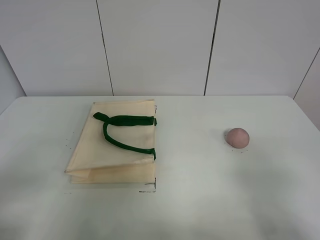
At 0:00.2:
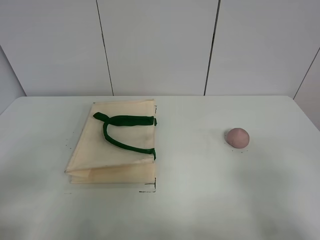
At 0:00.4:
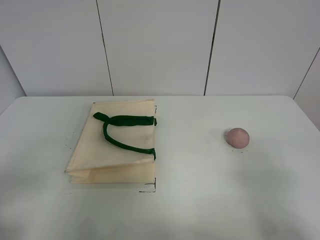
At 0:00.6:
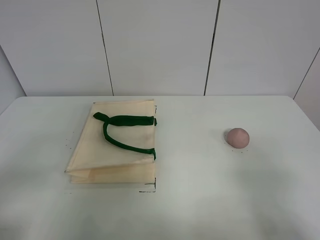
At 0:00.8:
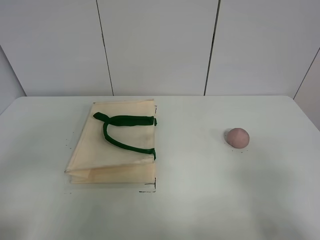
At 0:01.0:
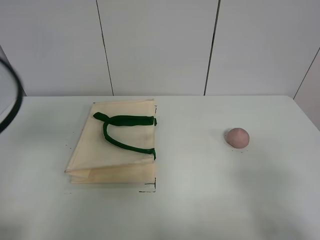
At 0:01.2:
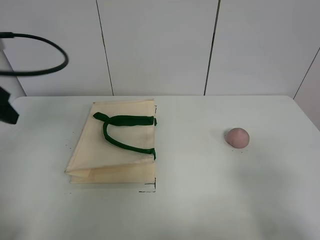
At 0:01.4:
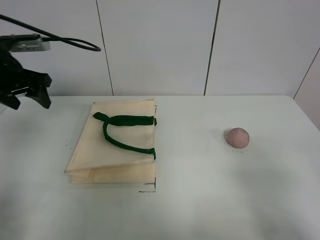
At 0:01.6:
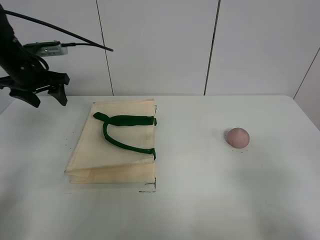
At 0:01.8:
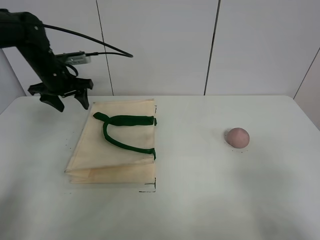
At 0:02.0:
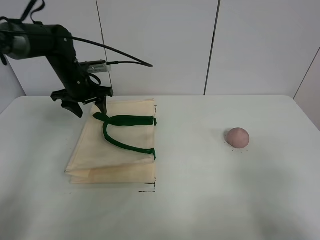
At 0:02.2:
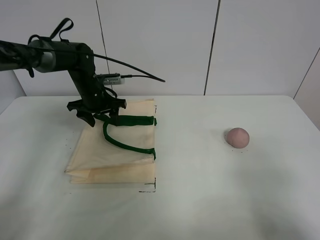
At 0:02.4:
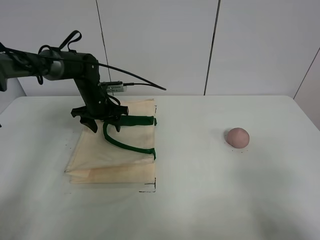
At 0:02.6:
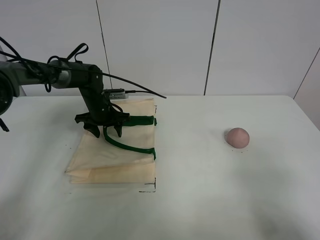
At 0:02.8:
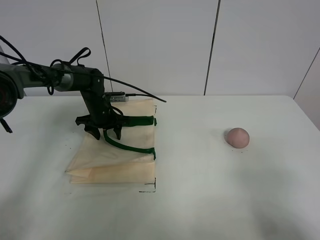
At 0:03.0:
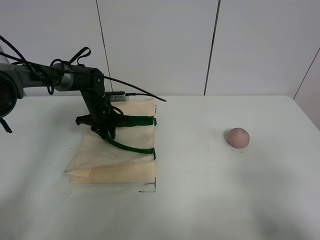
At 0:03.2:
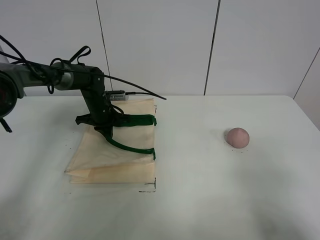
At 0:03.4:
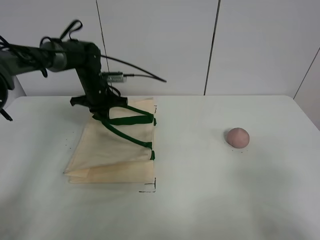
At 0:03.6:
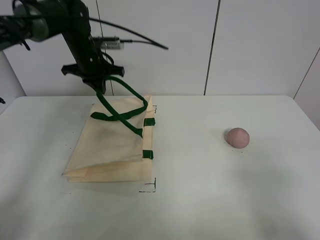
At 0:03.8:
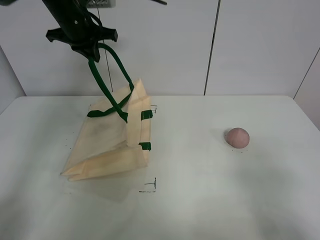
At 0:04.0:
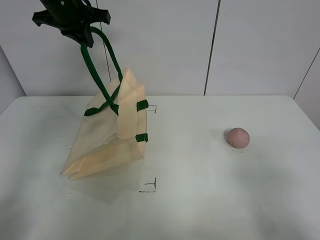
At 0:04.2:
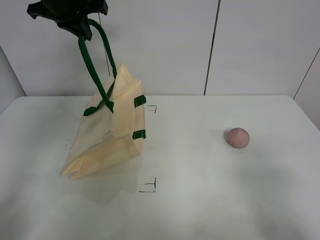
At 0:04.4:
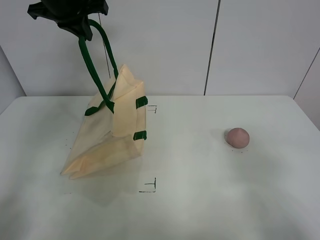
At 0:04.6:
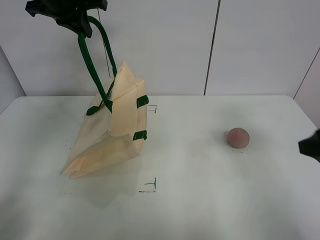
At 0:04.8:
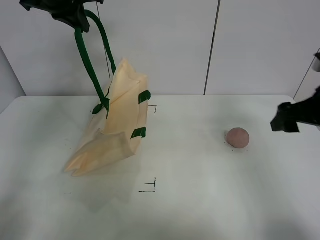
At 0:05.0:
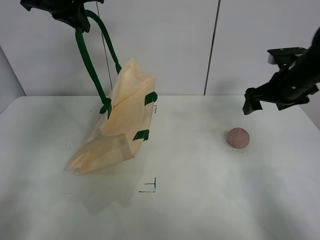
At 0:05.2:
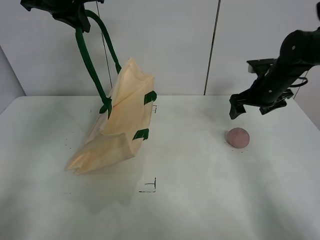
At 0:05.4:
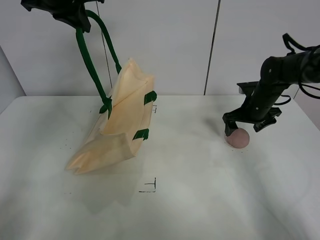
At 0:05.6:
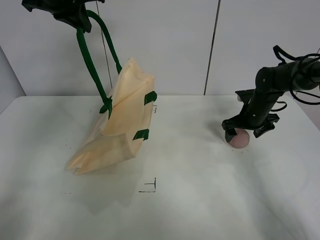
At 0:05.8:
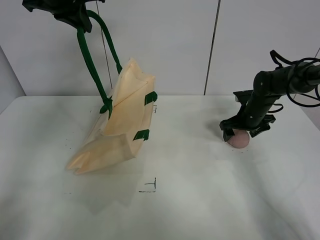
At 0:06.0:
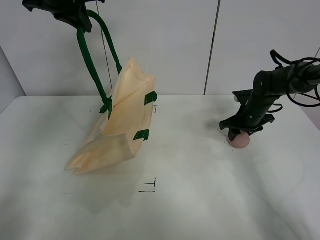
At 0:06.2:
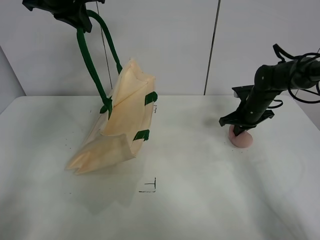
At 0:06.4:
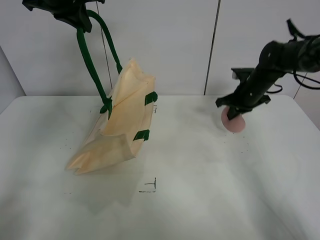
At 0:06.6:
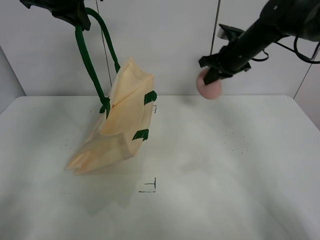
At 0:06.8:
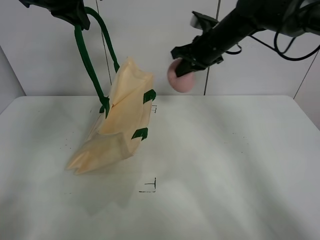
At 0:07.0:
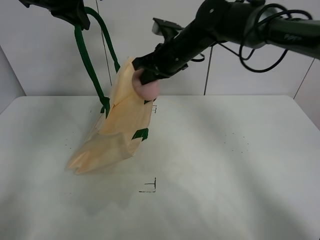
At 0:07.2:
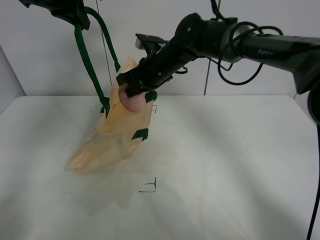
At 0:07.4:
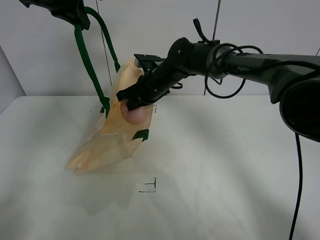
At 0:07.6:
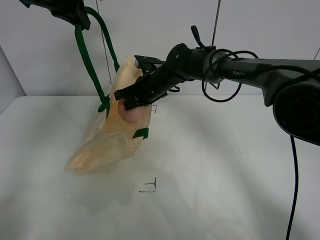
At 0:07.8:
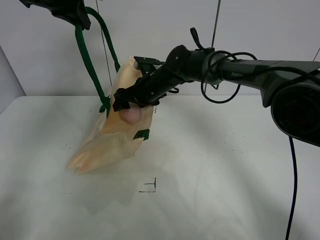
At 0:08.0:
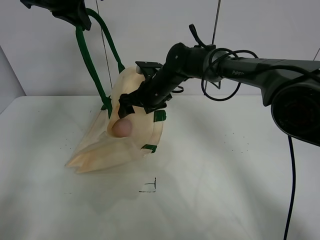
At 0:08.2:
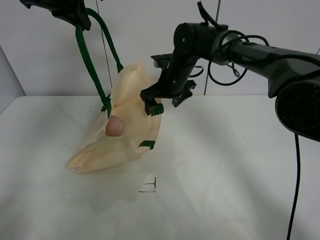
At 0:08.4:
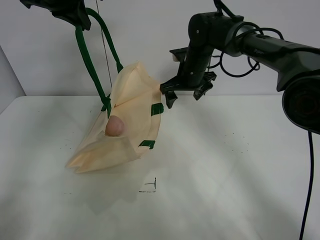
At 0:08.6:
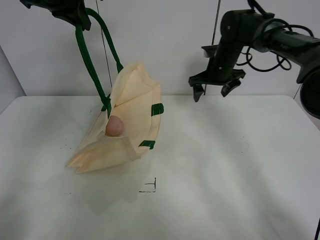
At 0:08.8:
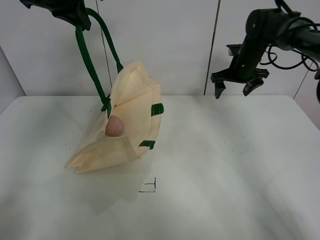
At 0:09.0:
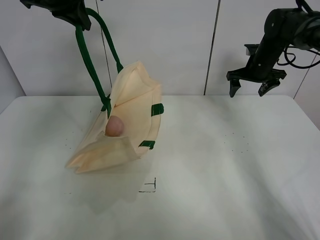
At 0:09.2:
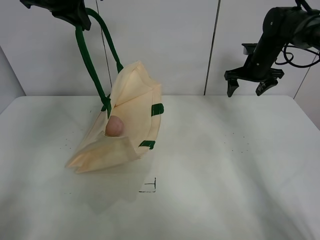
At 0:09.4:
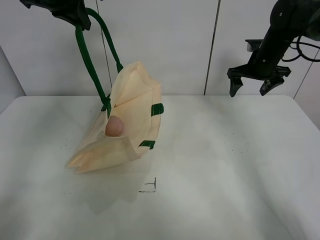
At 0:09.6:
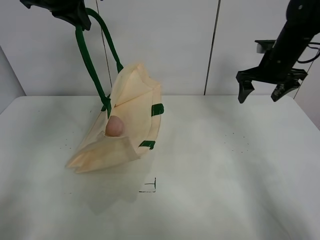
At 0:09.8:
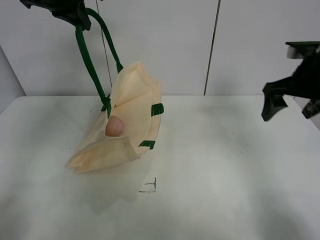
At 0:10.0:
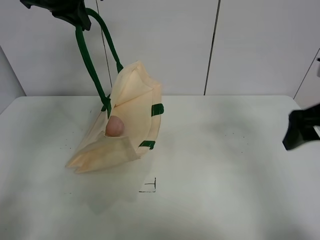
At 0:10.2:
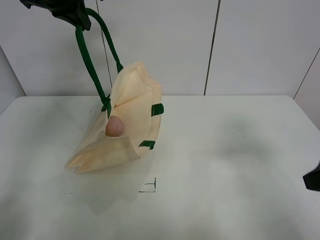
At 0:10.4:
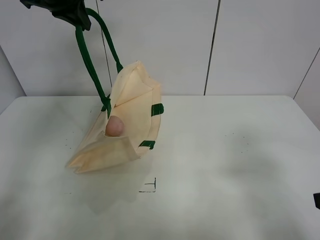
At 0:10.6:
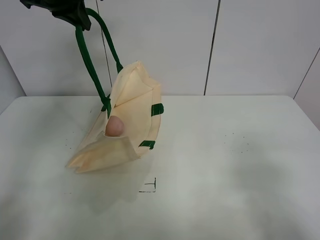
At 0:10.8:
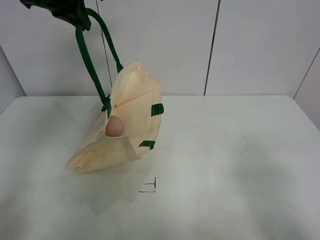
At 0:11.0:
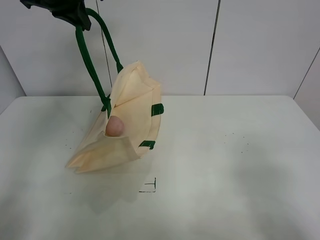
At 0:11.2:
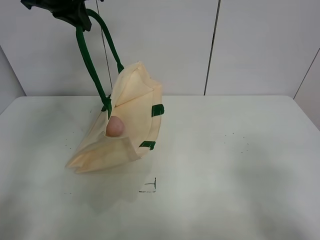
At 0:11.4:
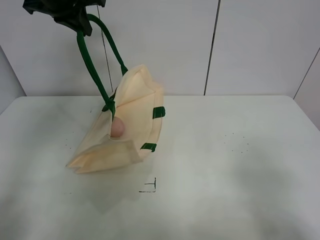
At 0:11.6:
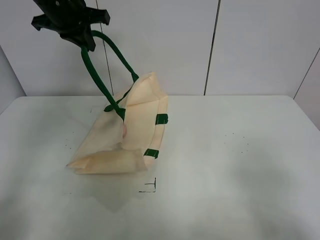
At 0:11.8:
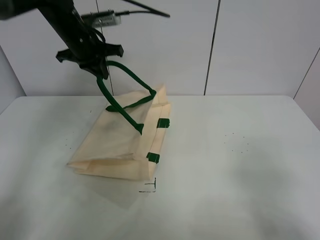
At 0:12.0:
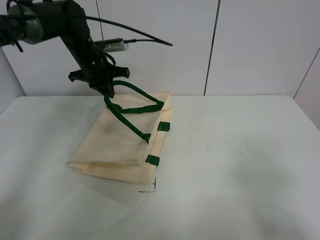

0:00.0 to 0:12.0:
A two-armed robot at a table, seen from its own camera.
Task of the whole recording: open the white linen bag and put the peach in the bag.
Step, 0:00.0 to 0:04.2: Lift the handbag with left gripper.
Step, 0:04.4 to 0:06.0: Grasp the peach with right gripper.
Step, 0:06.2 to 0:08.0: Place the peach in the handbag with right gripper.
0:01.6 to 0:03.0: The left gripper shifts about 25 cm downward, to the right and forward.
0:03.0 to 0:04.4: The left gripper shifts some 30 cm upward, and closes.
0:04.4 to 0:06.0: The right gripper goes some 40 cm forward.
0:06.0 to 0:07.6: The right gripper shifts about 25 cm to the left, and closes.
0:07.6 to 0:09.0: The right gripper travels to the right by some 25 cm, and opens.
0:09.0 to 0:10.4: The right gripper moves backward, roughly 40 cm.
0:10.4 to 0:12.0: The right gripper heads backward, covering approximately 10 cm; the left gripper moves downward, about 15 cm.

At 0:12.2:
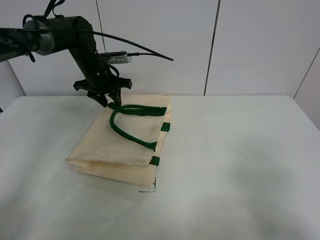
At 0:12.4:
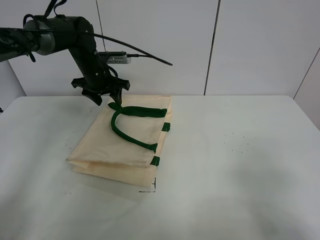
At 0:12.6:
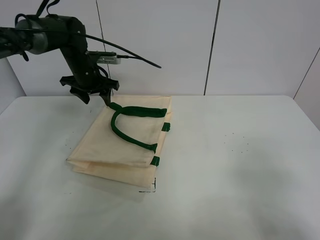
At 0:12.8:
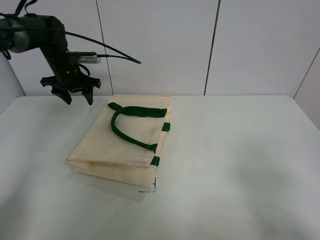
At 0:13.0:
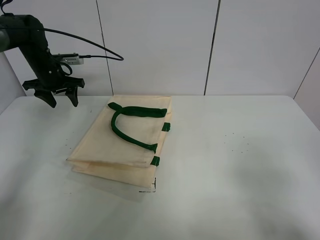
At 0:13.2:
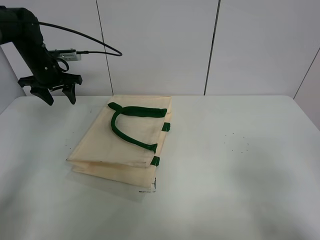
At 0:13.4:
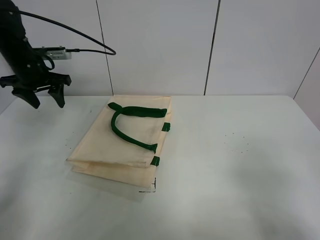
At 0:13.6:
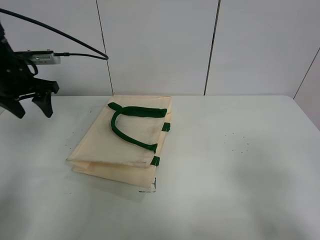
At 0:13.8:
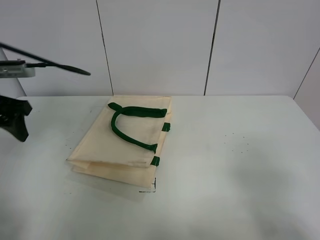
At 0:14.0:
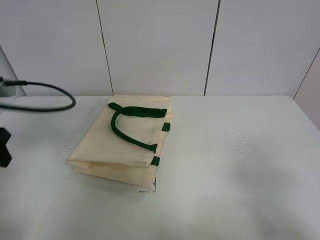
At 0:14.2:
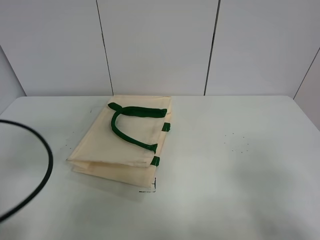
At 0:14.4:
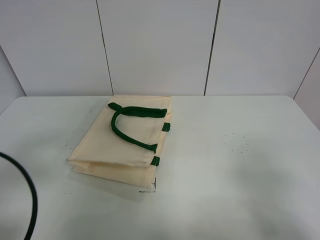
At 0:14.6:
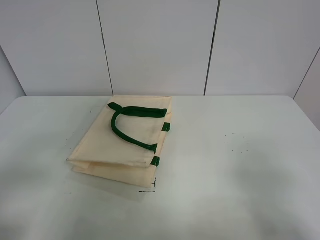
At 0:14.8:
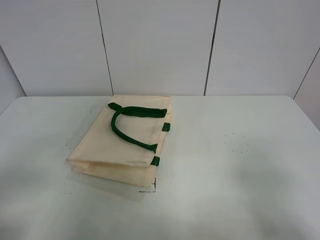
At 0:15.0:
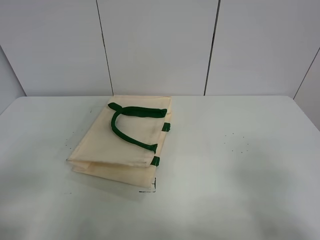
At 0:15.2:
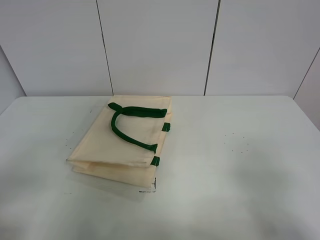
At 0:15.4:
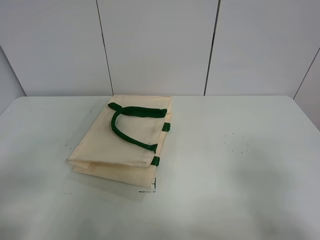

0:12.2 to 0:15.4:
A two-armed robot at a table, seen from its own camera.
Task of the whole recording: open the white linen bag and put the peach in the bag.
0:12.2 to 0:13.8: The left gripper heads backward and to the left, covering some 20 cm, and opens its fingers.
0:13.8 to 0:15.4: The left gripper heads backward, covering approximately 30 cm.
